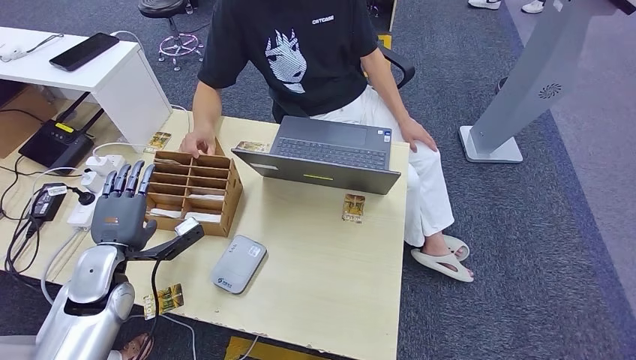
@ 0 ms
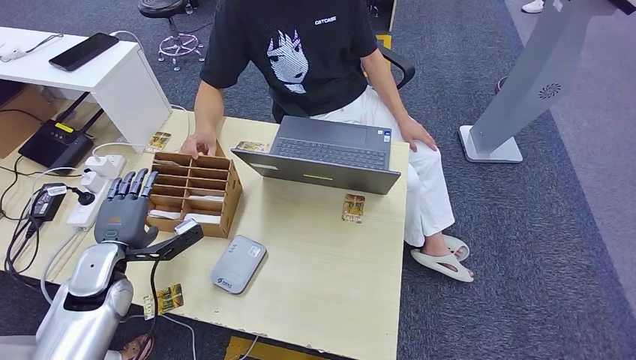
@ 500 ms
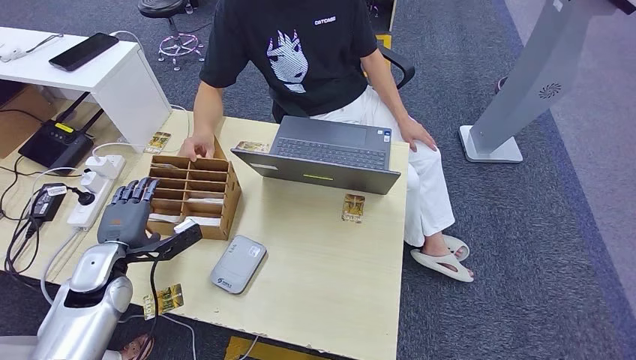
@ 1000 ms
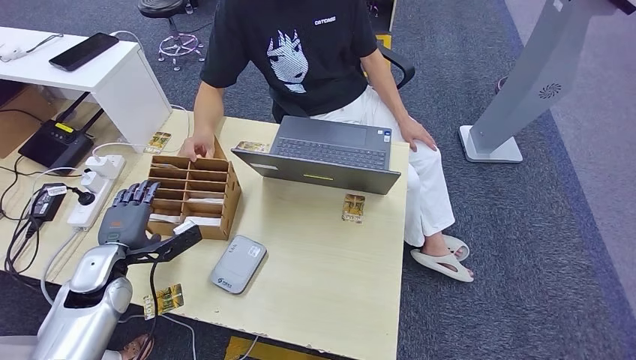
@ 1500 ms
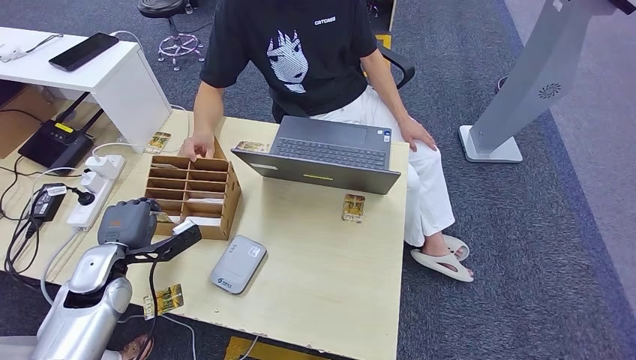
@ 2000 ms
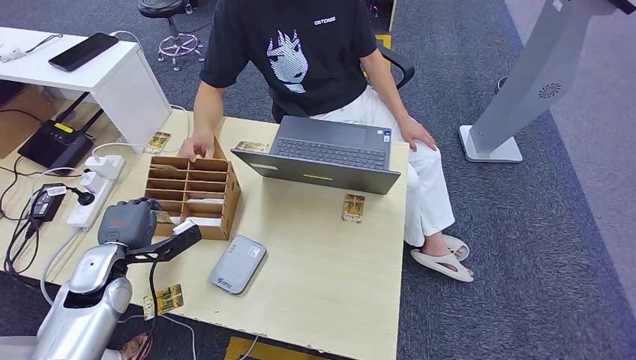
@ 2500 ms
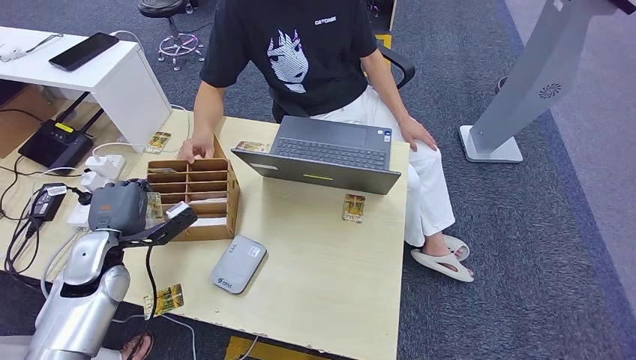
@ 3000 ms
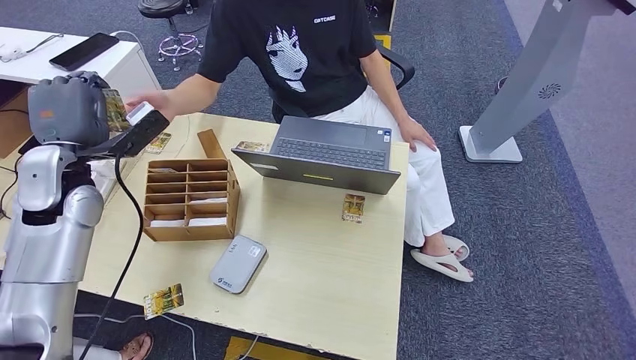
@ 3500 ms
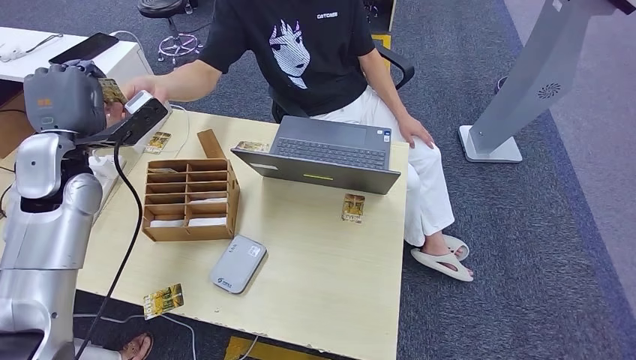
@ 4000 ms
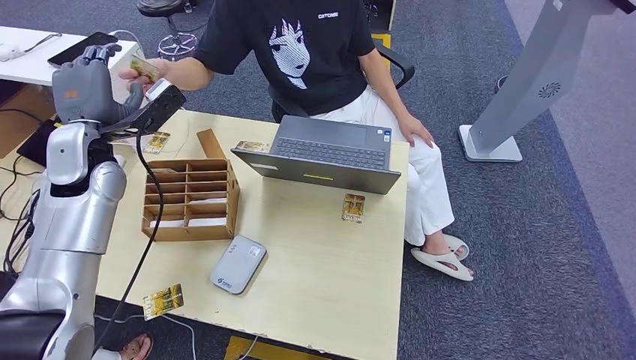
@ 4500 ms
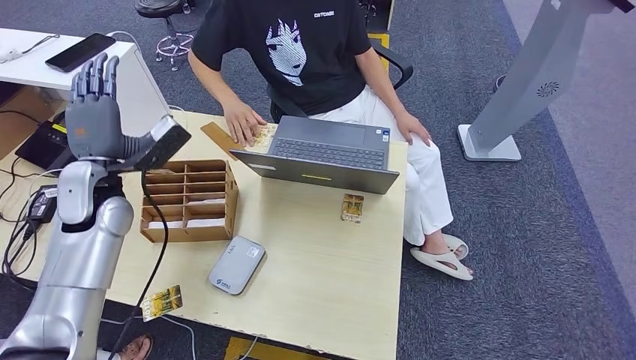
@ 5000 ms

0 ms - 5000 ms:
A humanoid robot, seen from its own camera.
Step, 0 ms - 3000 ms: Pick up the room key from the key card box.
Step, 3500 ms - 5000 ms: Hand the room key to the person.
0 ms - 2500 ms: The hands move only a little.
2500 ms - 5000 ms: The left hand heads upward and forward, covering approximately 15 cm.

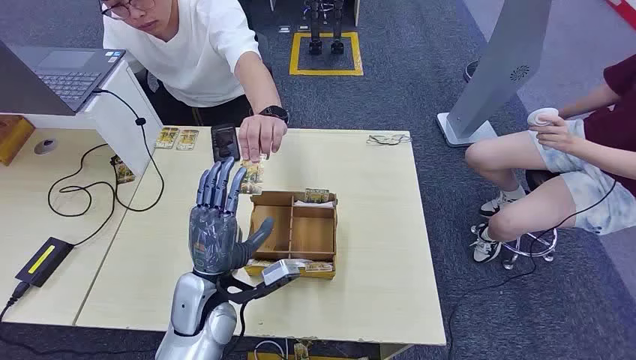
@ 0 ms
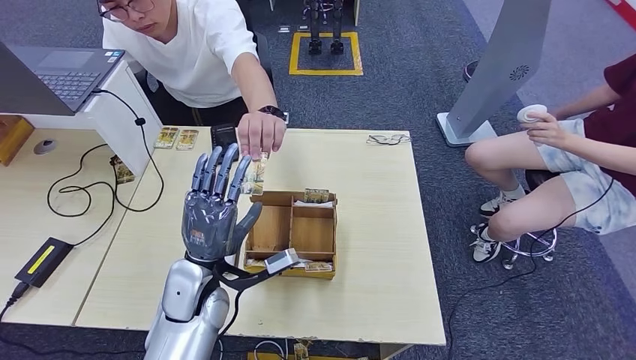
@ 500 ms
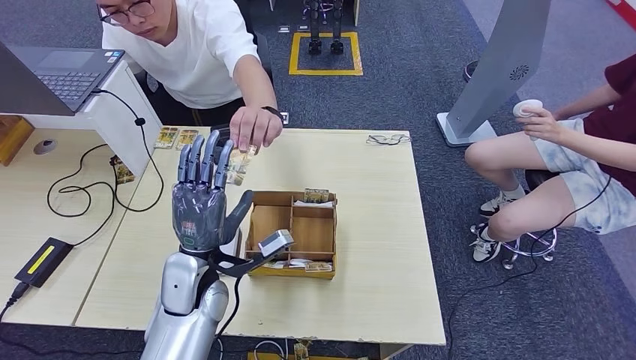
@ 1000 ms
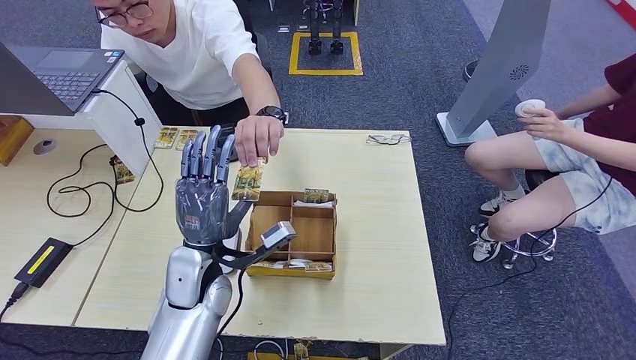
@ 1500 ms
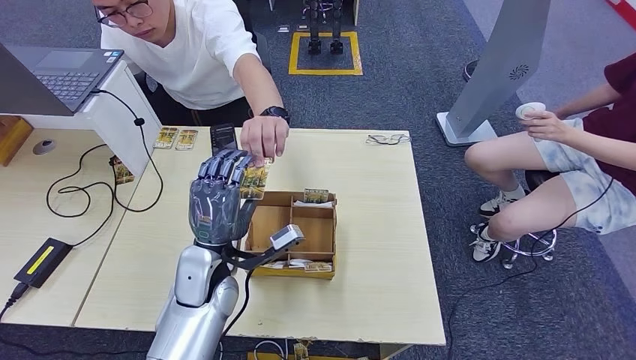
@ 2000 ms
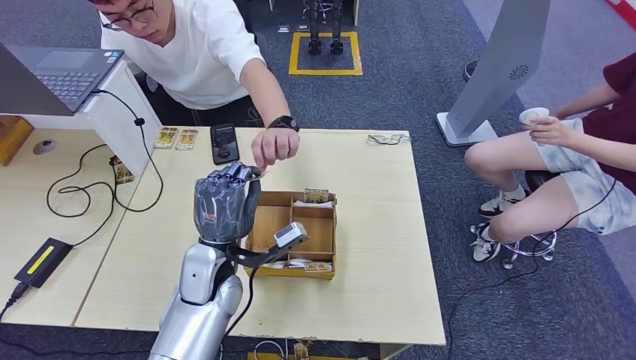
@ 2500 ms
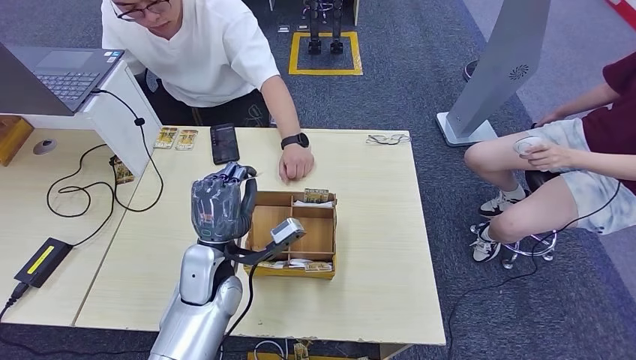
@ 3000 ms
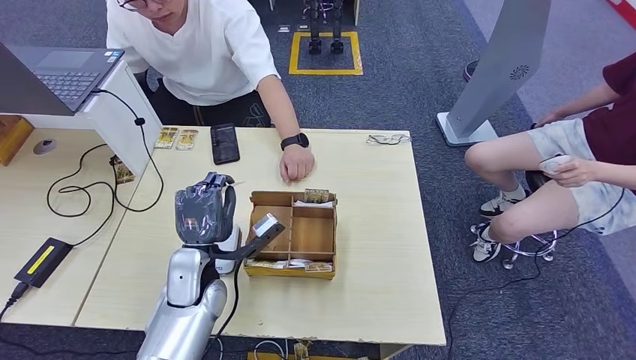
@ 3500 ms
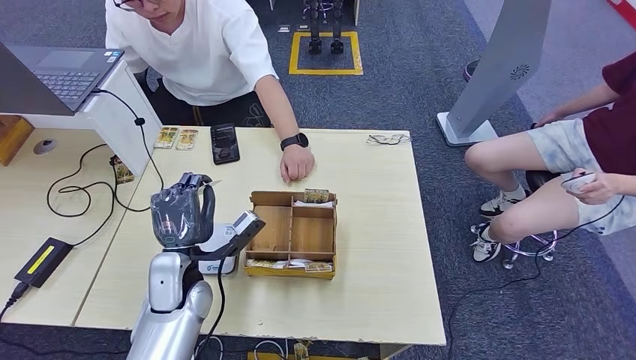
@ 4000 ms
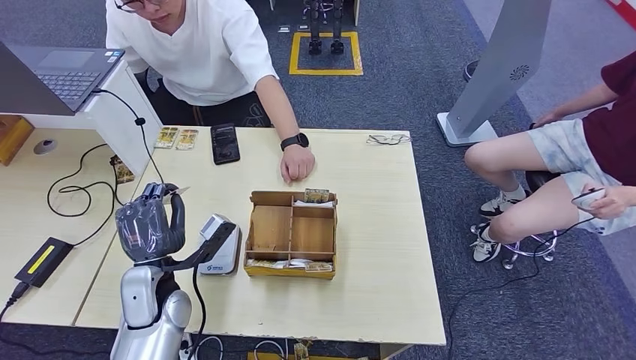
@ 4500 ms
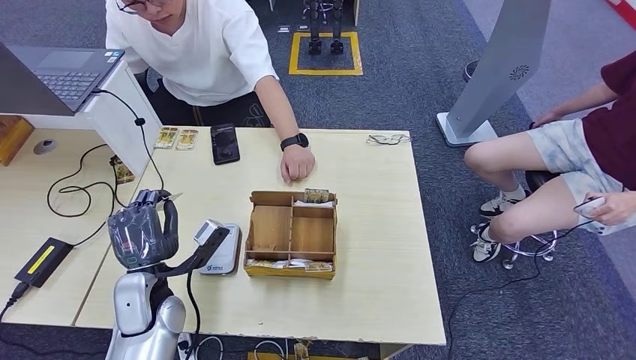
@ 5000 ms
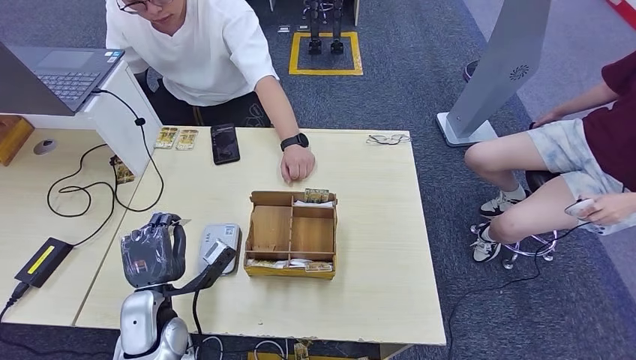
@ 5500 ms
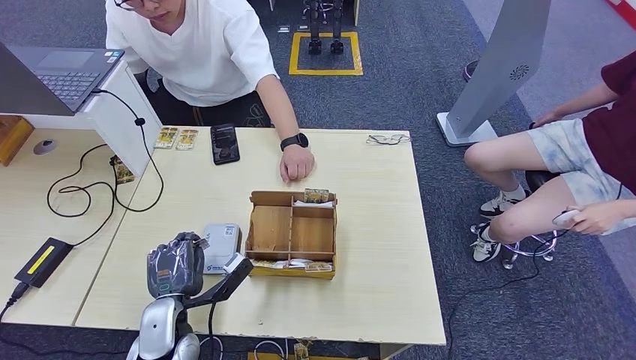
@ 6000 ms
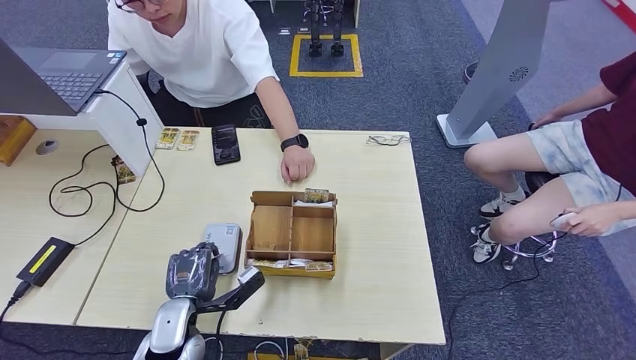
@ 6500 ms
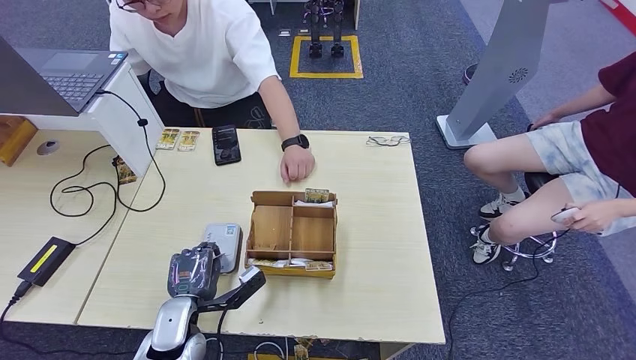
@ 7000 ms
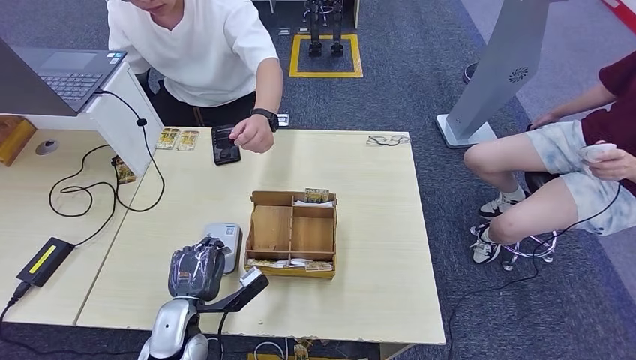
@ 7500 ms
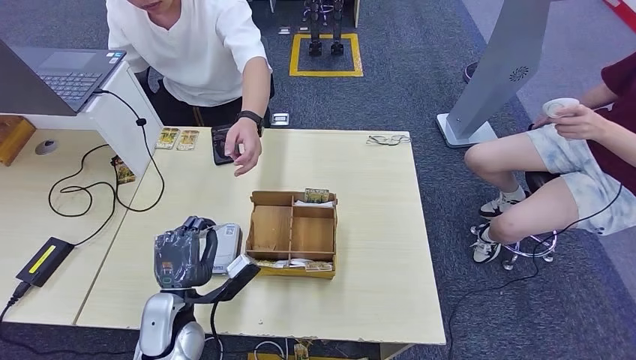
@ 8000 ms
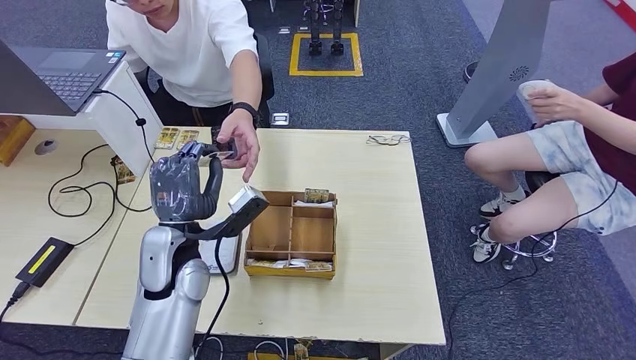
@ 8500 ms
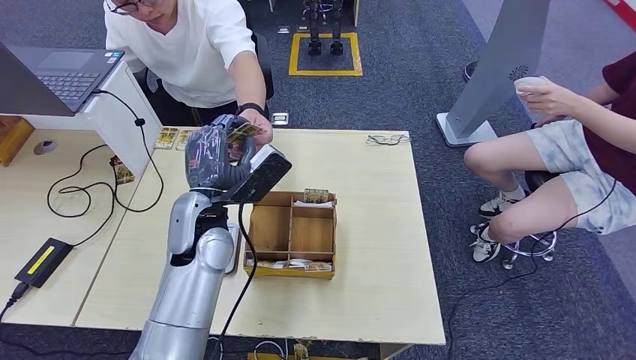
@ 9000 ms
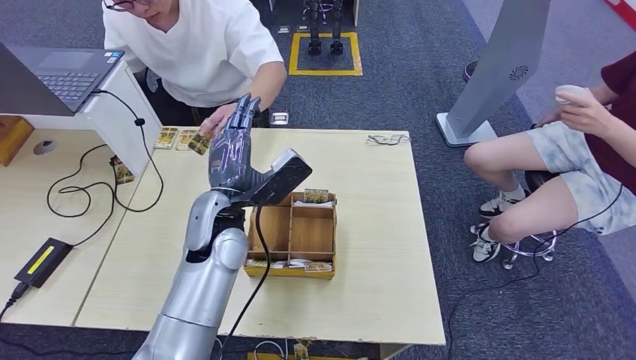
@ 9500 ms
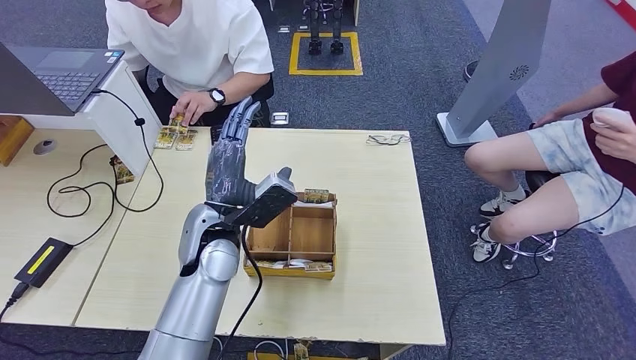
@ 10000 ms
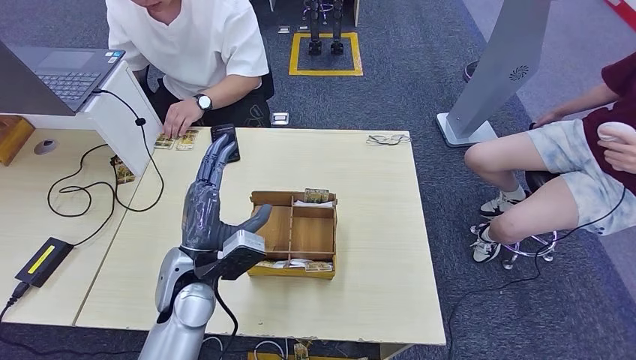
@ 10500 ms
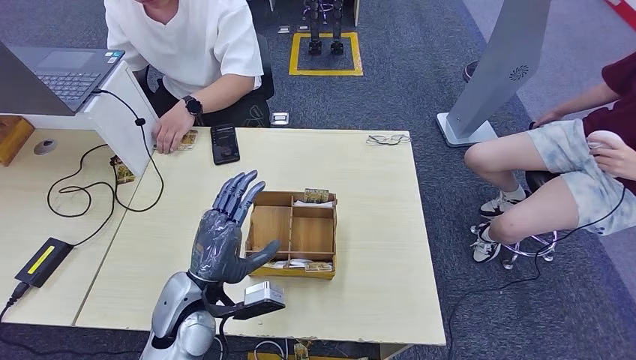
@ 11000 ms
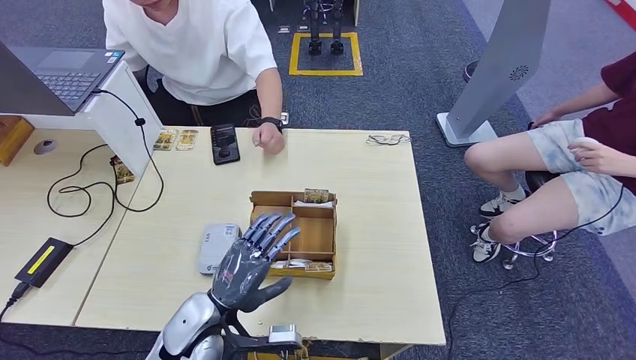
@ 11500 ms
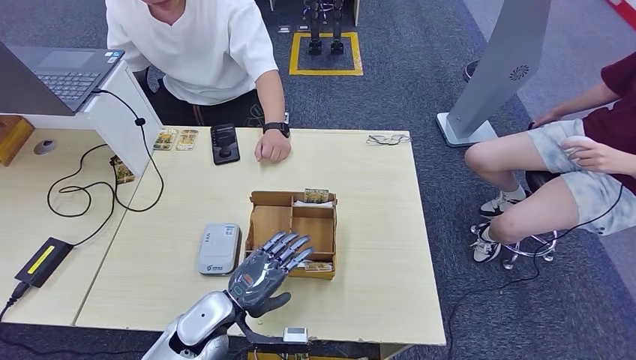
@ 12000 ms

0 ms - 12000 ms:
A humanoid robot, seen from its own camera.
Step, 0 ms - 2500 ms: Take the ID card from the person's hand.
Step, 3000 ms - 7500 ms: Place the ID card on the card reader.
Step, 8000 ms - 11000 ms: Hand the ID card to the person.
2000 ms - 4000 ms: The left hand shifts some 5 cm to the left.
4000 ms - 6000 ms: The left hand travels backward and downward by some 10 cm.
6000 ms - 8000 ms: The hands make only small movements.
8000 ms - 10000 ms: The left hand is displaced upward, forward and to the right by roughly 20 cm.
10000 ms - 12000 ms: The left hand moves downward and backward, roughly 15 cm.

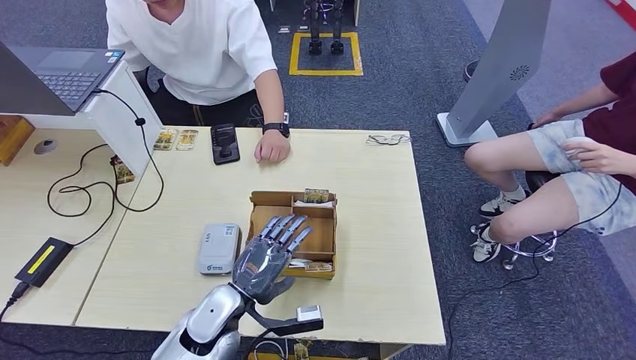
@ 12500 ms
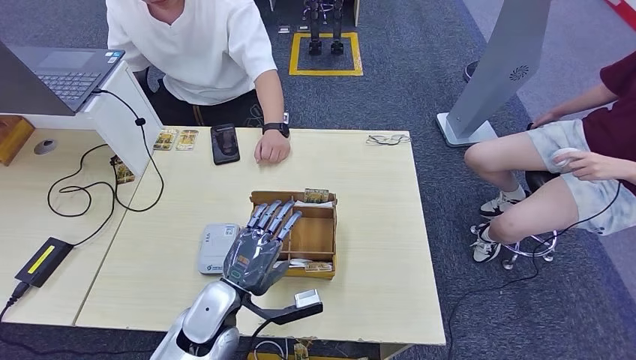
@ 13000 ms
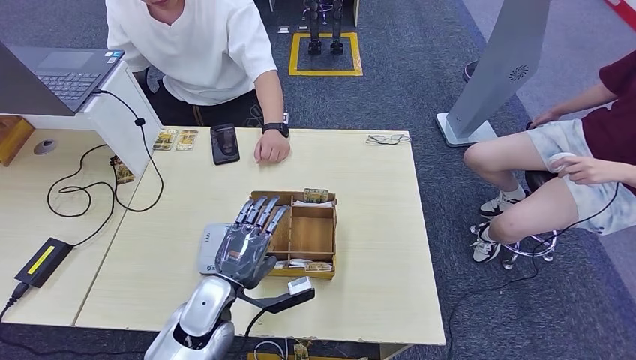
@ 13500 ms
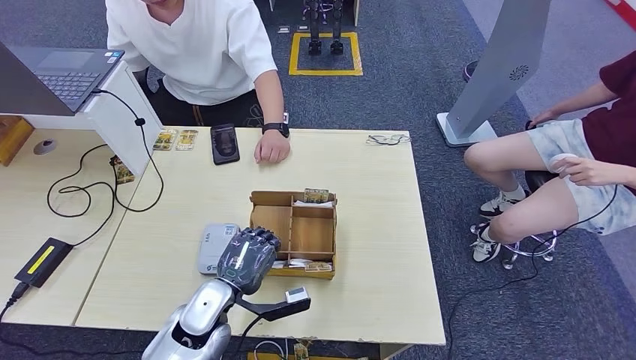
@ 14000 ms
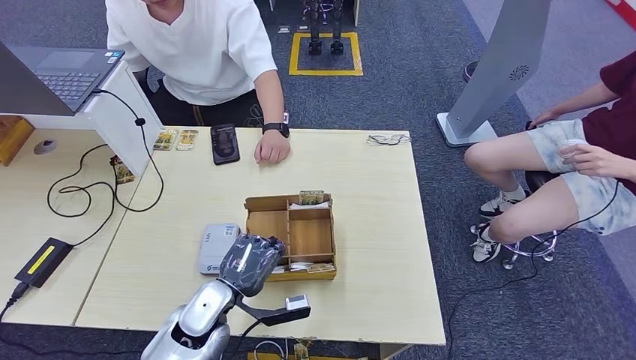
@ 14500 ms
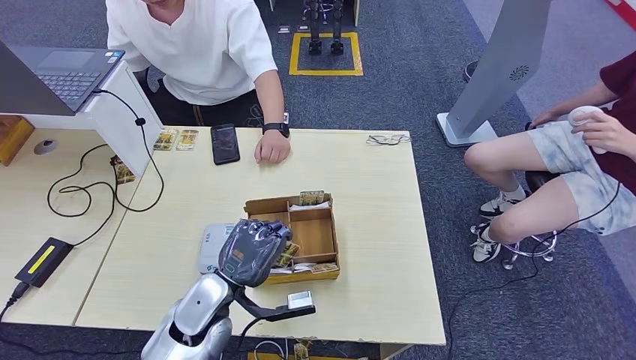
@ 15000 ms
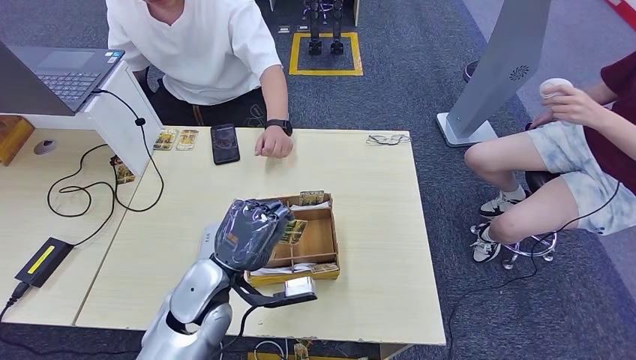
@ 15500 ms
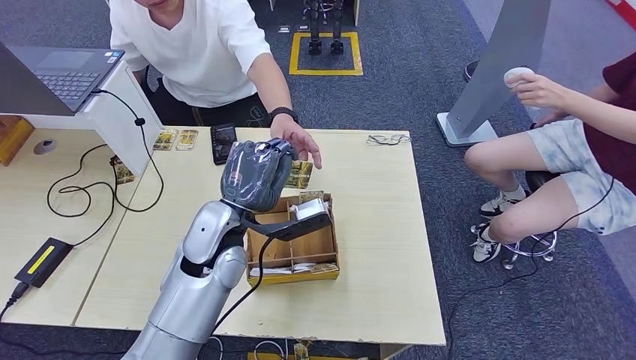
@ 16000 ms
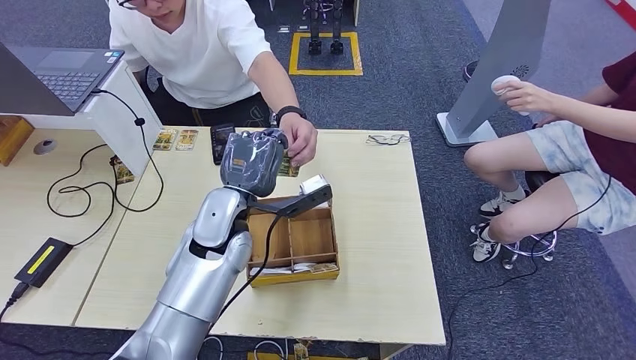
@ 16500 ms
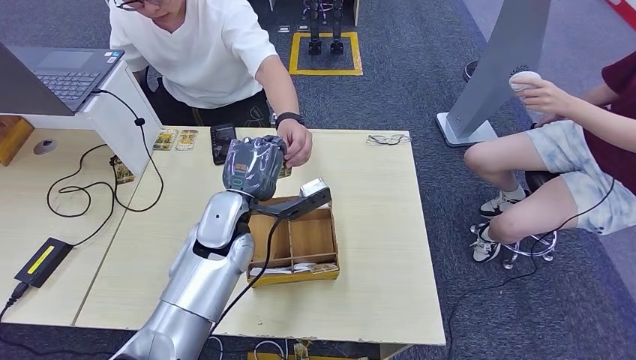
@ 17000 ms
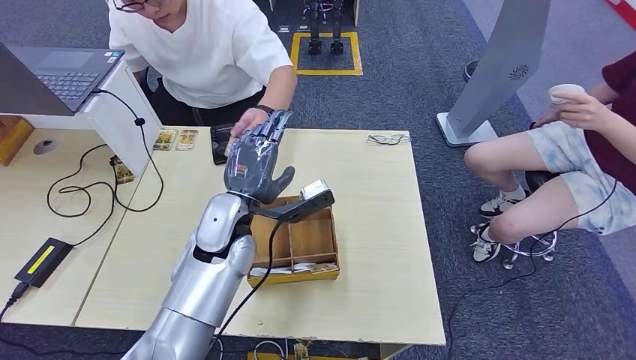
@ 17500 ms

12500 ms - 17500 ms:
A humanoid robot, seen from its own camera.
Step, 12500 ms - 15500 ms: Pick up the room key from the key card box.
12500 ms - 15000 ms: The hands move only a little.
15000 ms - 17500 ms: The left hand shifts some 15 cm upward and forward.
